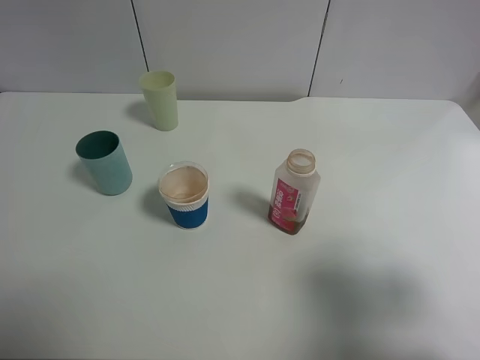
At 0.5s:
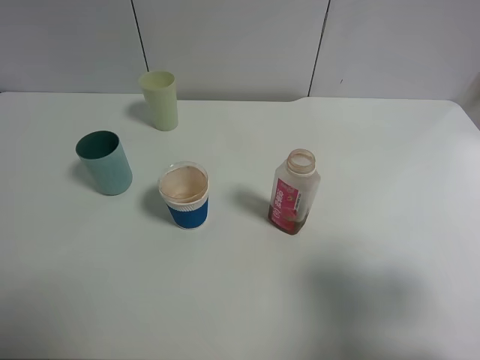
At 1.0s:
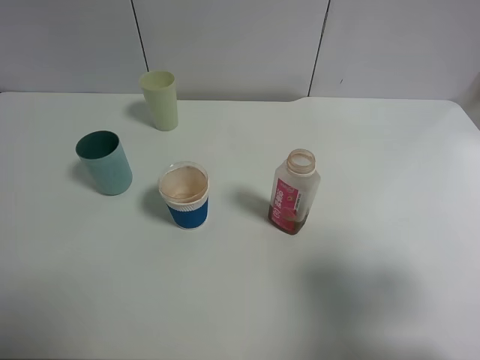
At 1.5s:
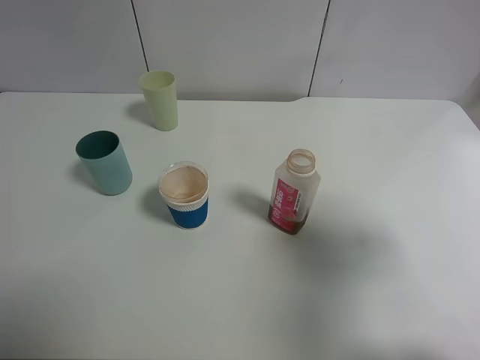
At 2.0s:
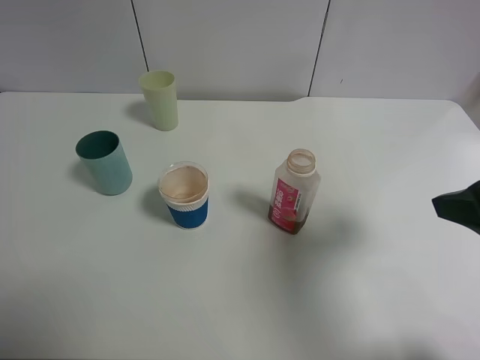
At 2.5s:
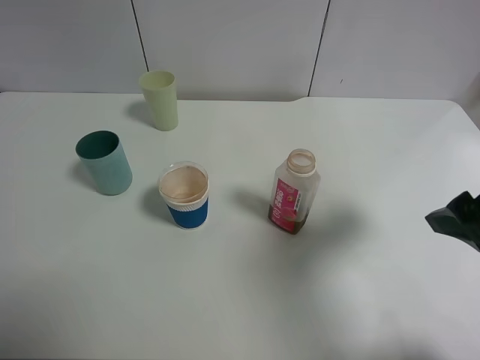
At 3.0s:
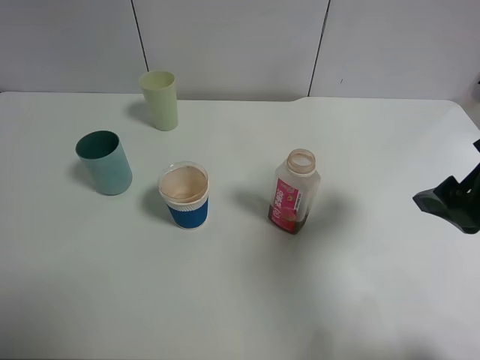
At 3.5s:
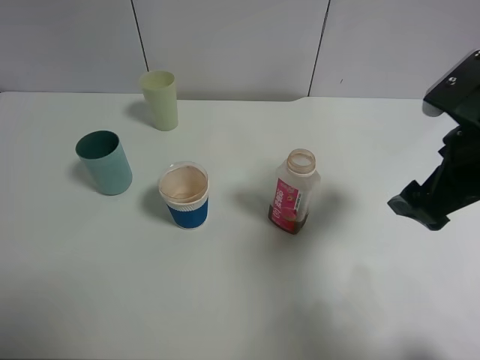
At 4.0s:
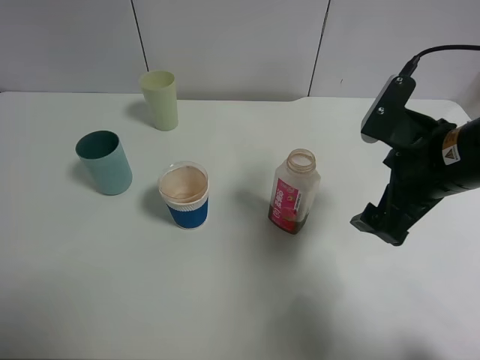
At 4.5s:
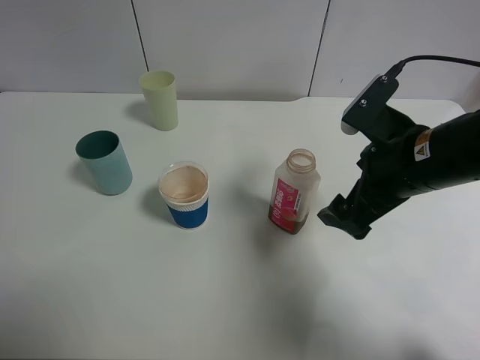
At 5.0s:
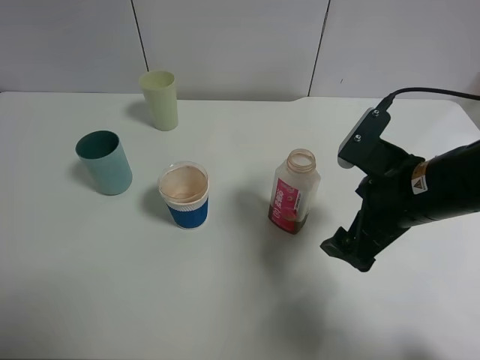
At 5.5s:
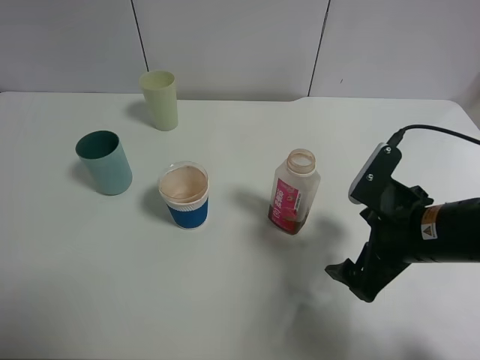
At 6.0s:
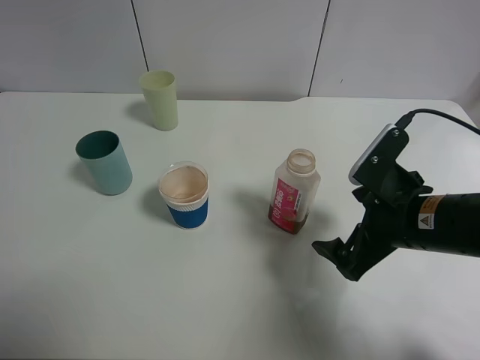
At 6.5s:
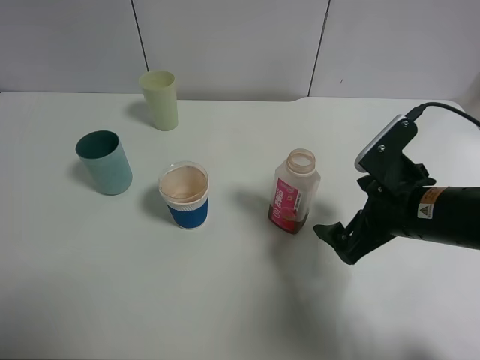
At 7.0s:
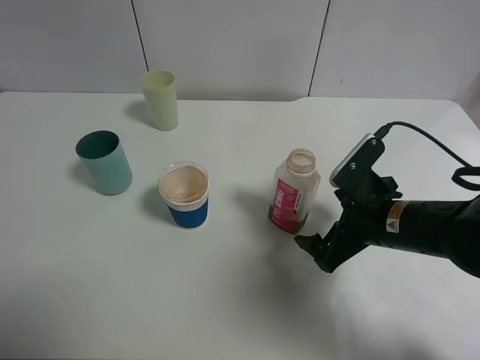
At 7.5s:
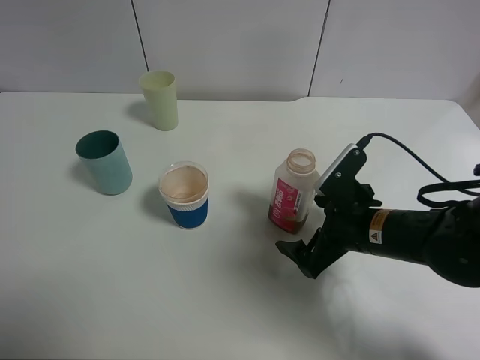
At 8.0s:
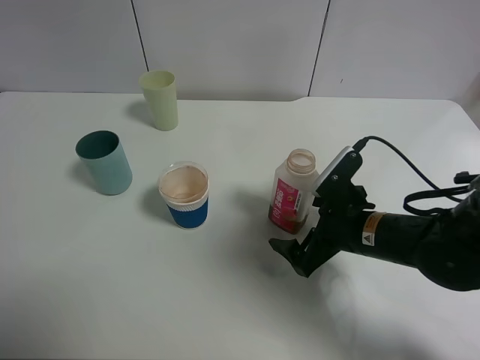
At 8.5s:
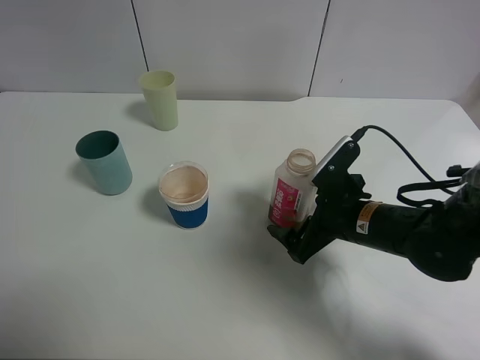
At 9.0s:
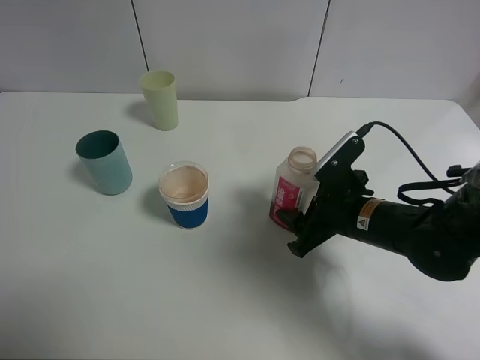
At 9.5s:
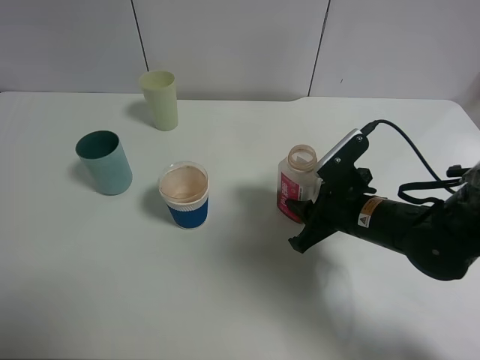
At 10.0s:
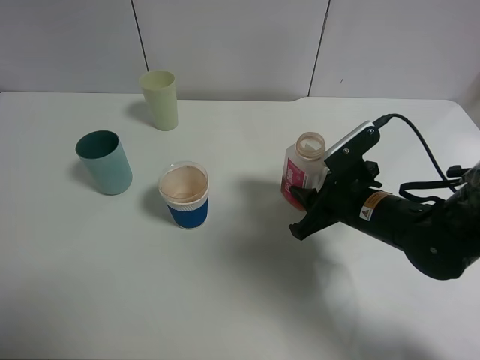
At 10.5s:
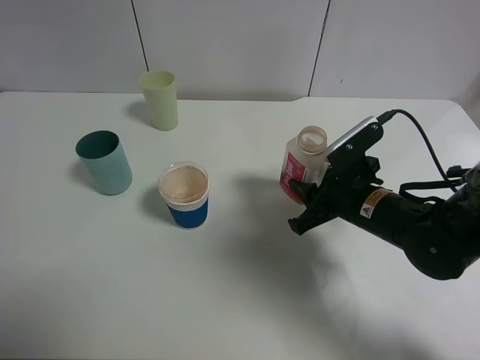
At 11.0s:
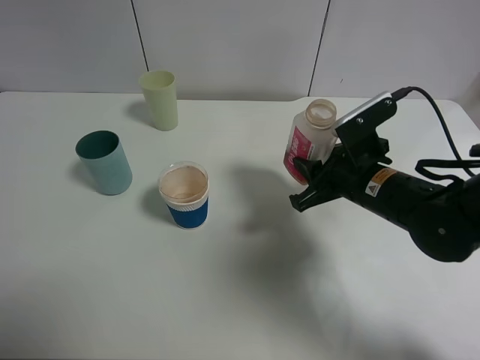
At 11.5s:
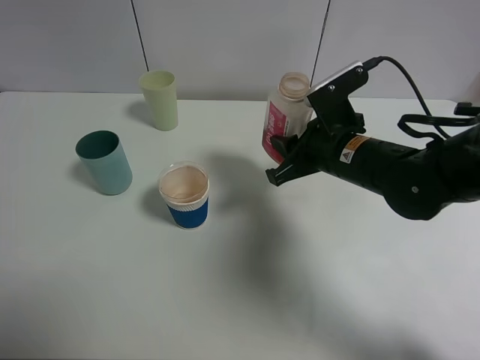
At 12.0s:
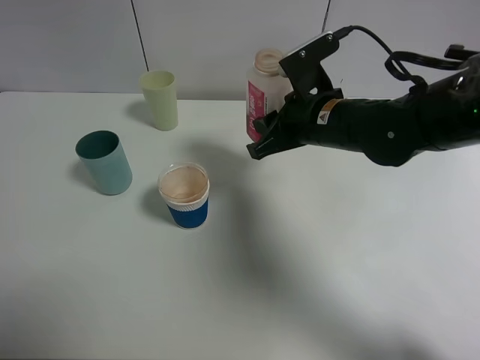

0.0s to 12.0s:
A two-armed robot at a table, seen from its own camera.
Task of the whole recording: use a clamp to hold the bottle of the drink, pour the beverage into a random cup, then clamp the cup containing the drink and pour the drink into another random cup.
0.0s to 2.0s: The right gripper moves forward, some 10 cm.
2.0s to 4.0s: The right gripper travels forward, downward and to the left by about 10 cm.
4.0s to 6.0s: The right gripper moves downward, roughly 5 cm.
6.0s to 8.0s: The right gripper is displaced downward by roughly 5 cm.
8.0s to 10.0s: The right gripper closes.
10.0s to 12.0s: The right gripper goes approximately 10 cm upward, forward and to the left.

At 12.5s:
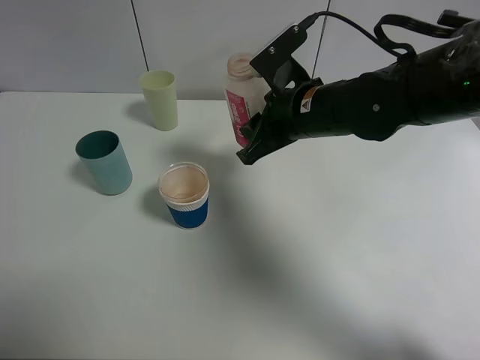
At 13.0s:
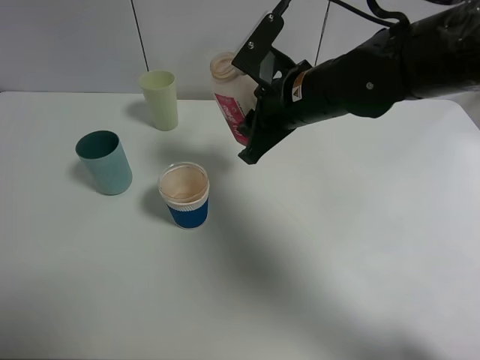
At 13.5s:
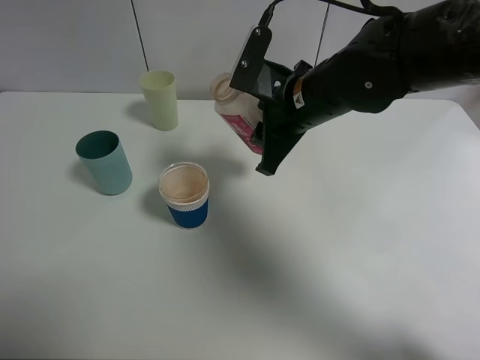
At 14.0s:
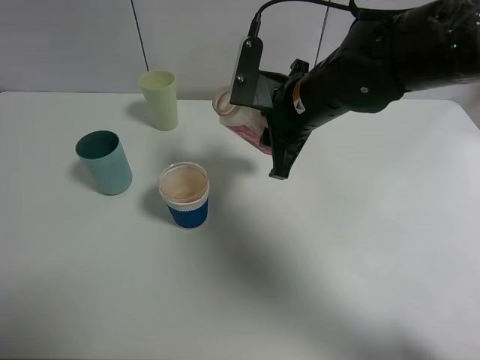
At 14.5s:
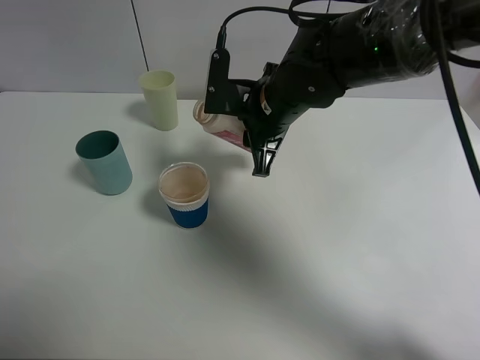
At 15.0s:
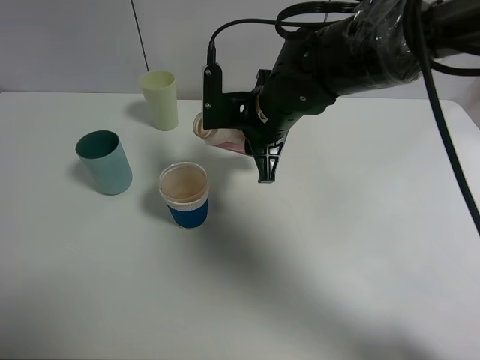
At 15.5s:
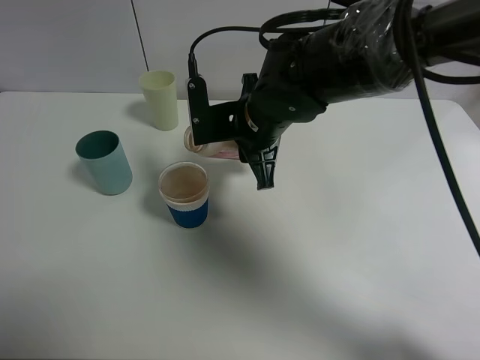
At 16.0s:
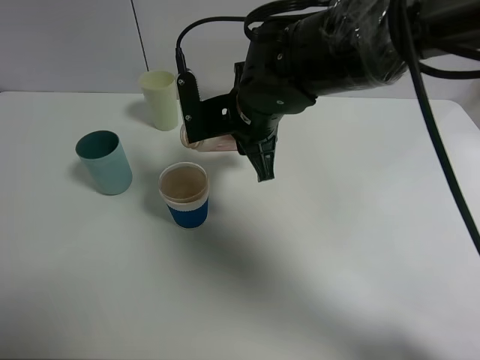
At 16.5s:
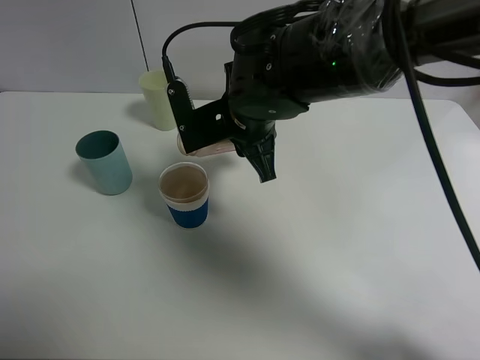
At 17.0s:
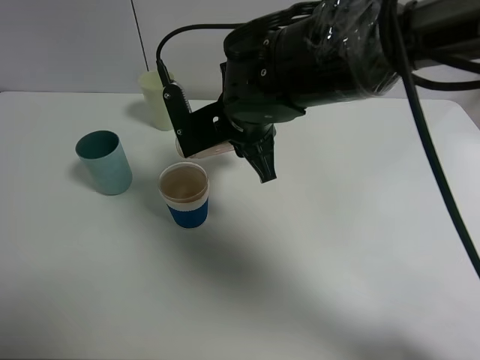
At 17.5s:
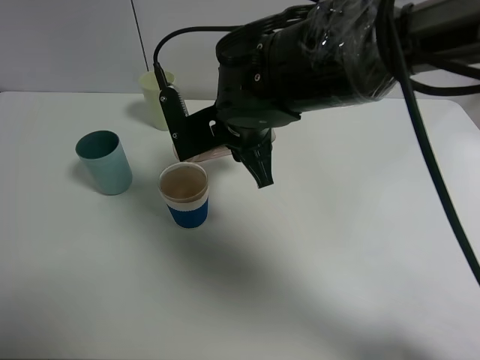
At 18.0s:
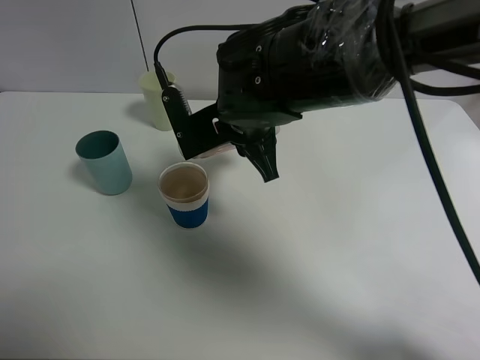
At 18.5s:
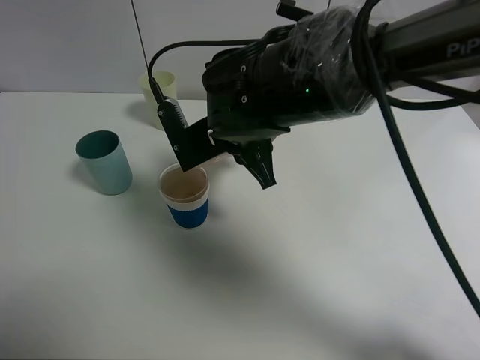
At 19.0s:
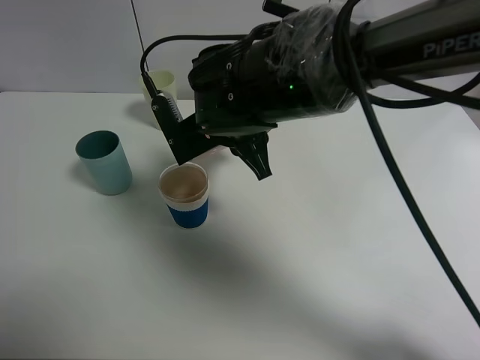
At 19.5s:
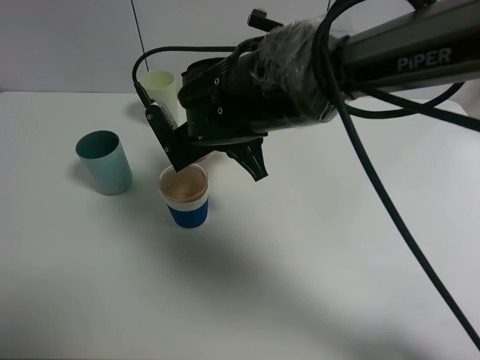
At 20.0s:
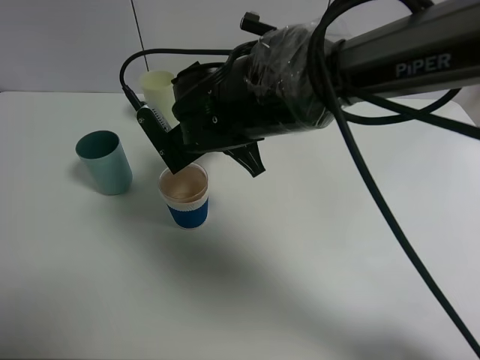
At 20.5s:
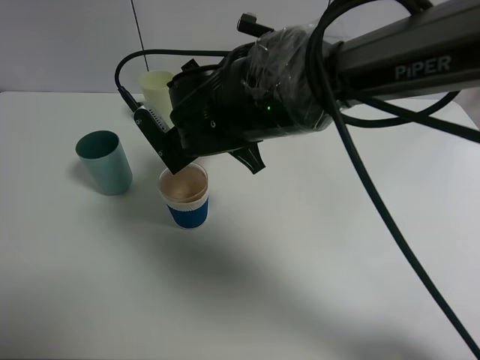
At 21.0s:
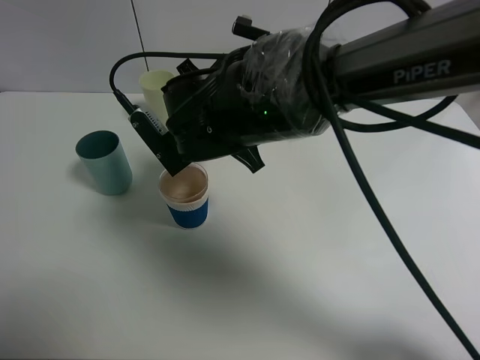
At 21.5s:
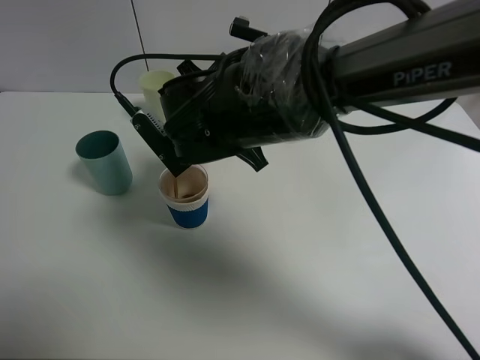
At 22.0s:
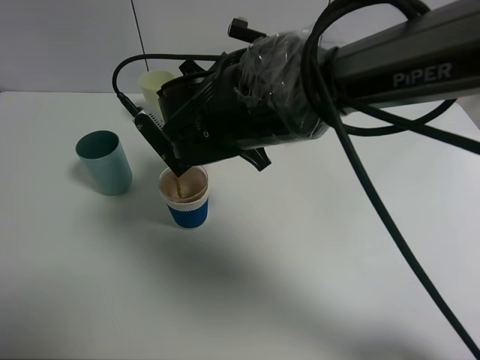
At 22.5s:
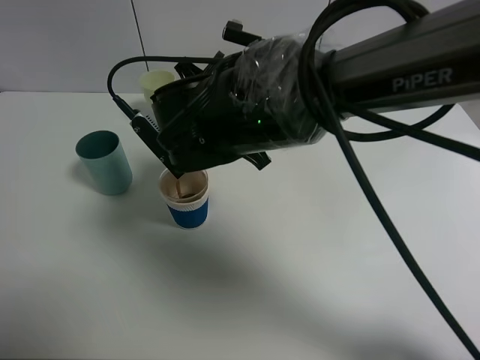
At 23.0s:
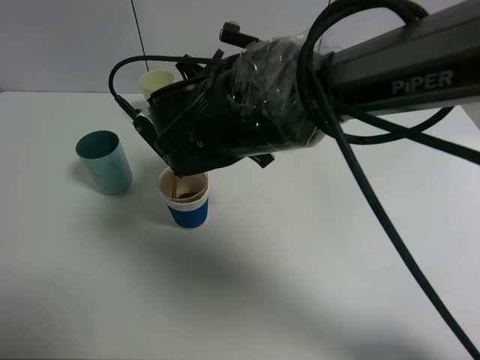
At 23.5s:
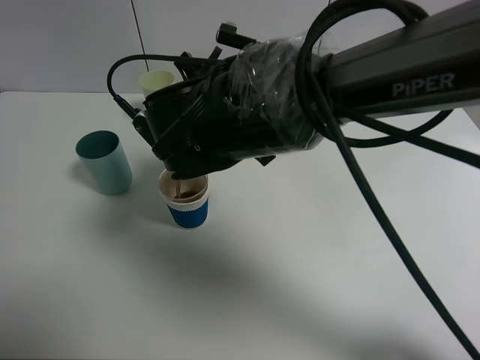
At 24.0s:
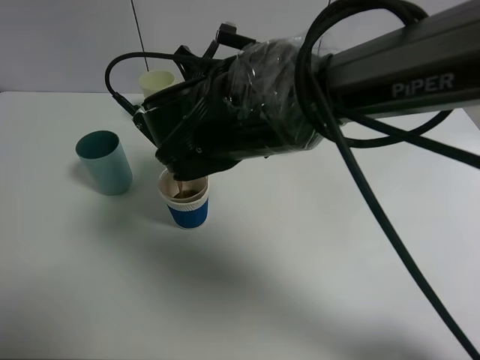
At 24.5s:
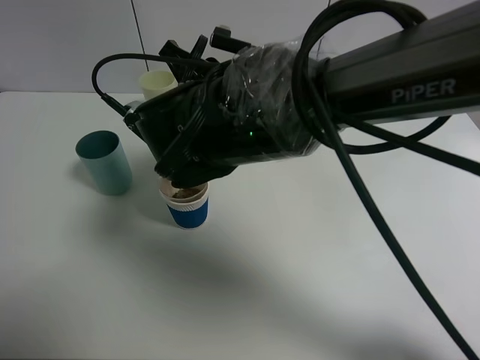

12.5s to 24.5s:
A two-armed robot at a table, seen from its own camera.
Task of the whole recording: use a clamp to hold the bottle of the drink, pour the beverage into a random cup, then clamp the cup containing the drink and pour the drink into another random cup.
16.5s to 18.5s: The grippers stay close to where they were, moving slightly.
18.5s to 20.5s: The grippers move only a little.
20.5s to 24.5s: The grippers make only small movements.

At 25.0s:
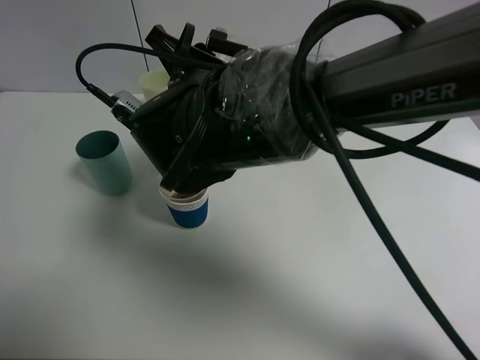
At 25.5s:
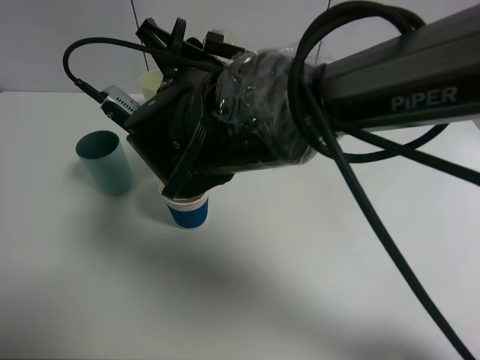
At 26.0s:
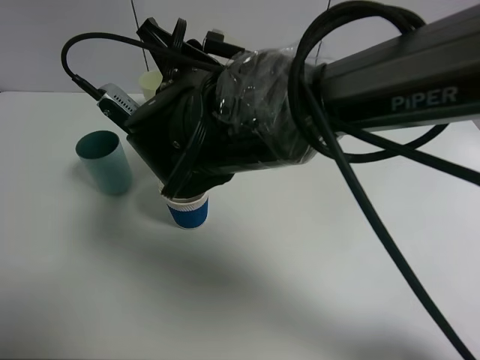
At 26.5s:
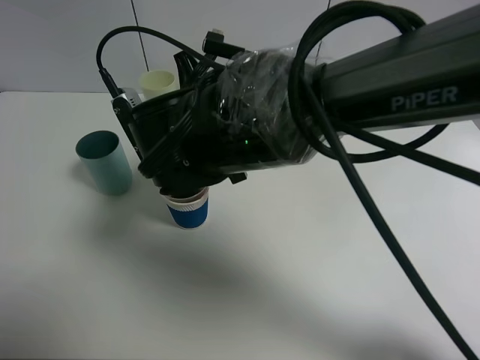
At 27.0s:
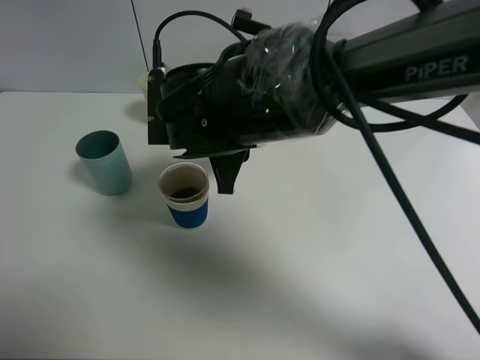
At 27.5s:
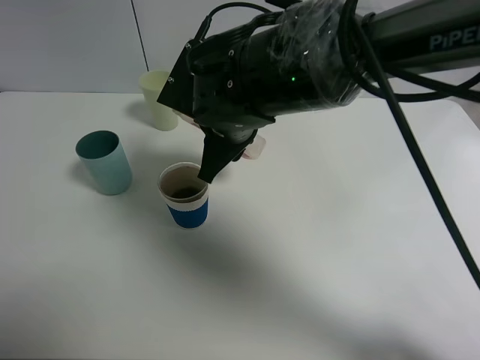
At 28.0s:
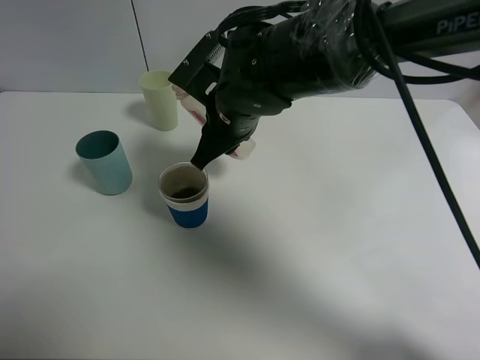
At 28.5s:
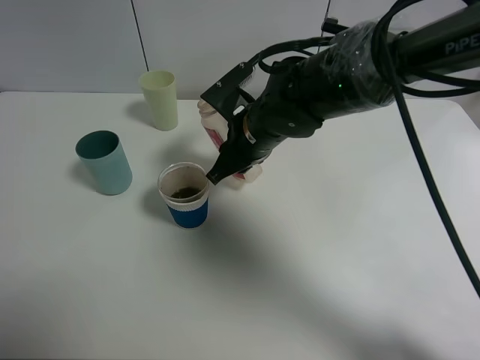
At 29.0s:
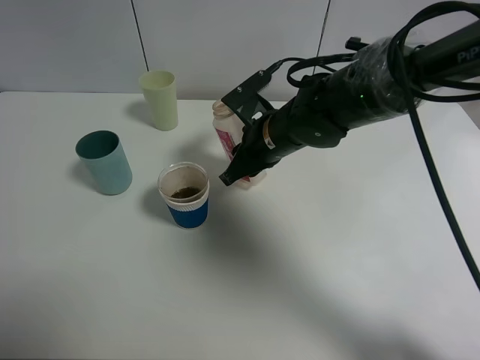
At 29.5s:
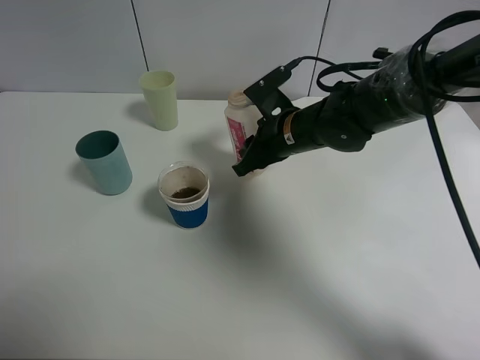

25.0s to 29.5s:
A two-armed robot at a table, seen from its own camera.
Task of the whole recording: use a clamp to hold the bottle of the drink, pour the beverage into a random cup, then clamp the cup containing the drink and pour the drink into another random cup.
Step, 25.0s to 27.0s: Pour the drink into the paper cup with right gripper.
27.0s to 29.5s: The right gripper shifts about 15 cm to the right, forward and downward.
